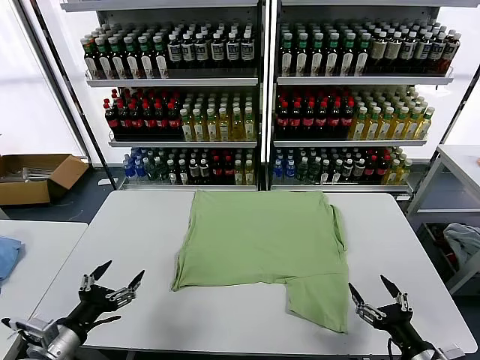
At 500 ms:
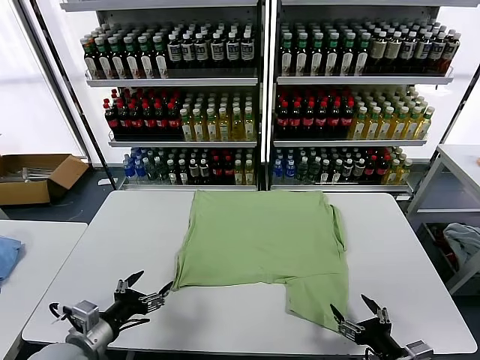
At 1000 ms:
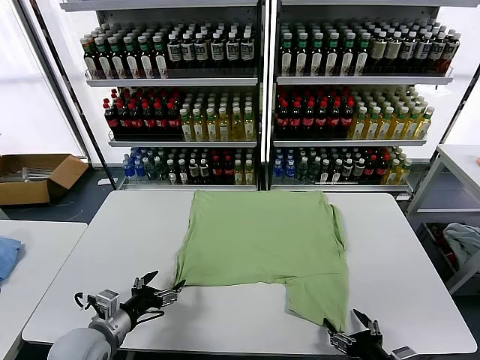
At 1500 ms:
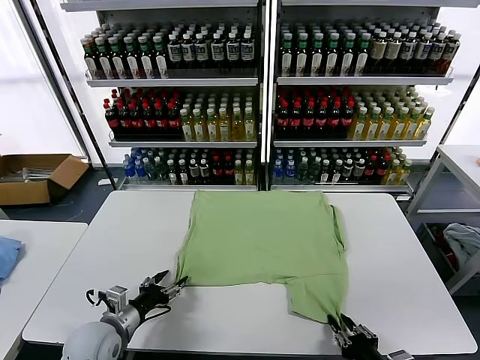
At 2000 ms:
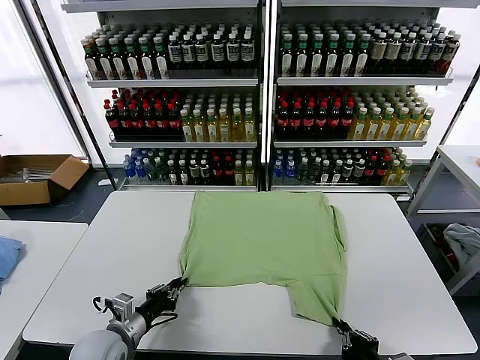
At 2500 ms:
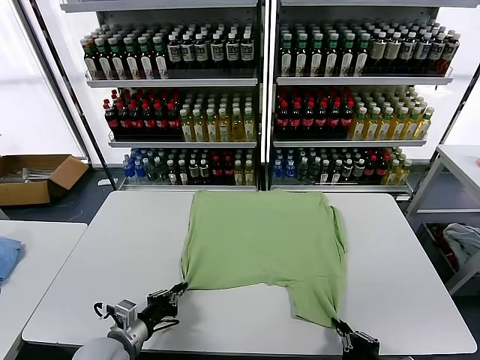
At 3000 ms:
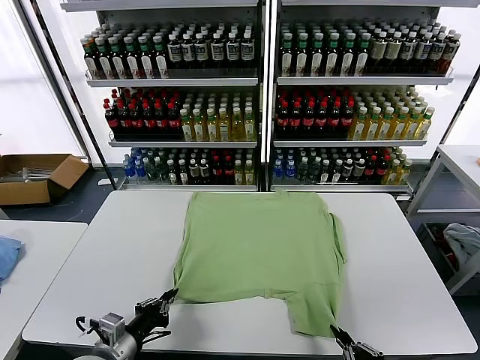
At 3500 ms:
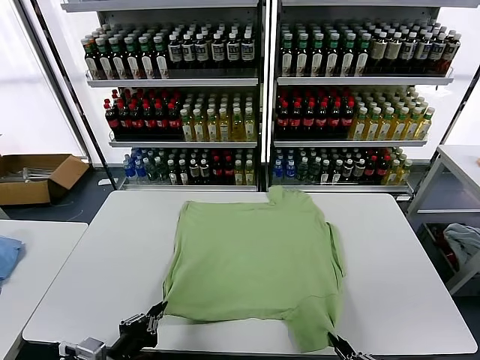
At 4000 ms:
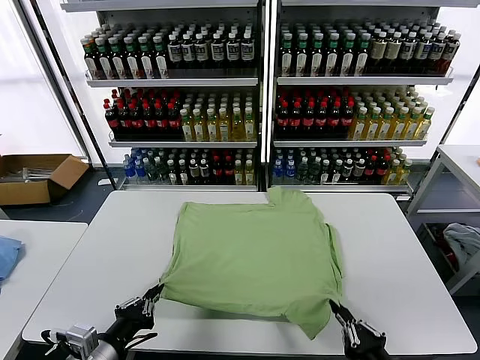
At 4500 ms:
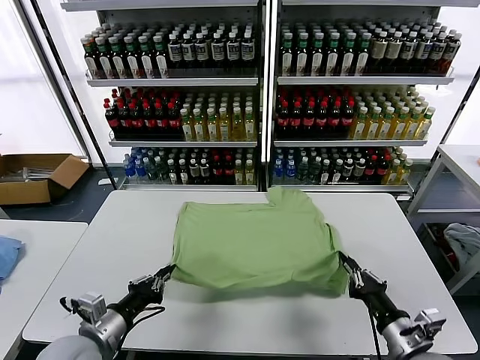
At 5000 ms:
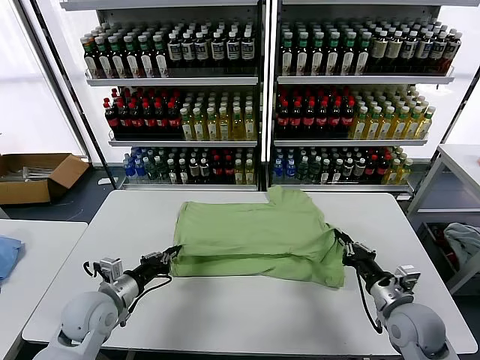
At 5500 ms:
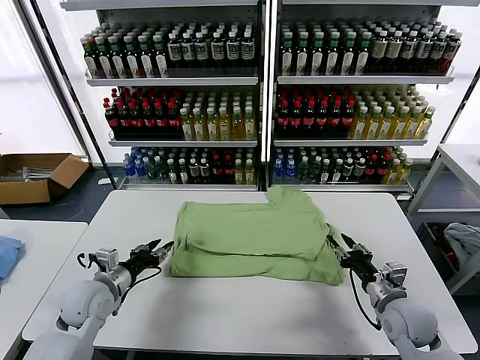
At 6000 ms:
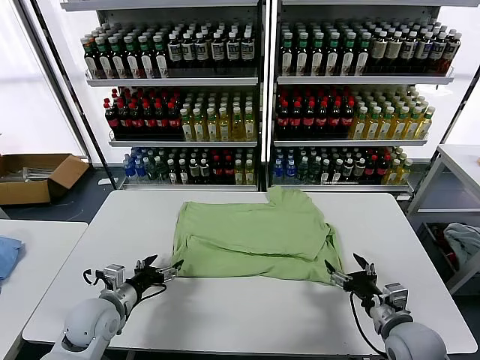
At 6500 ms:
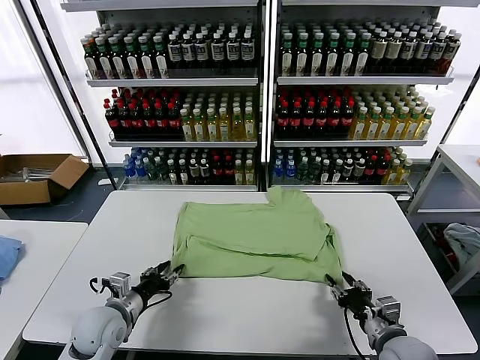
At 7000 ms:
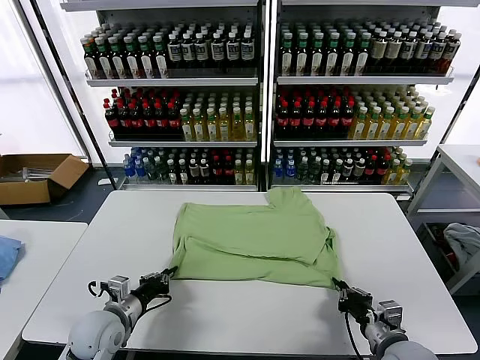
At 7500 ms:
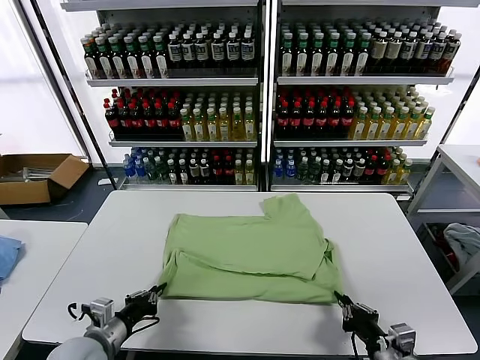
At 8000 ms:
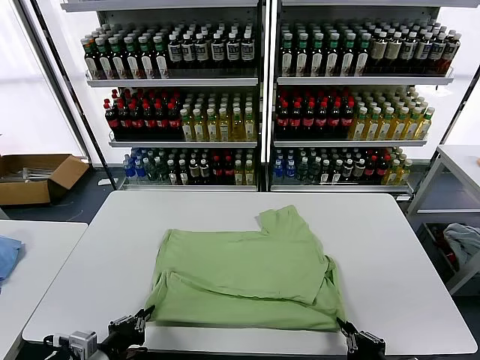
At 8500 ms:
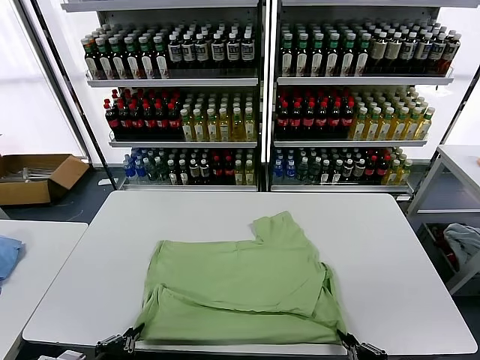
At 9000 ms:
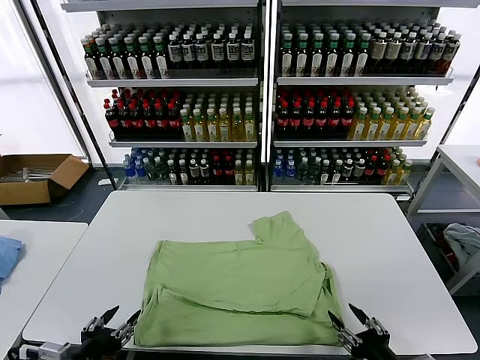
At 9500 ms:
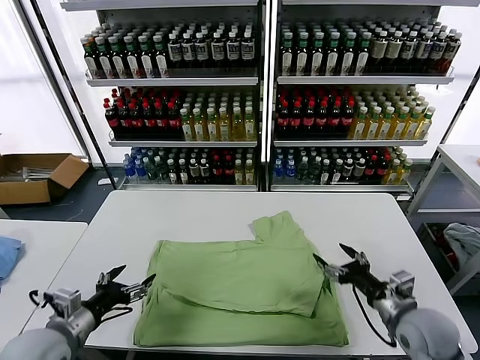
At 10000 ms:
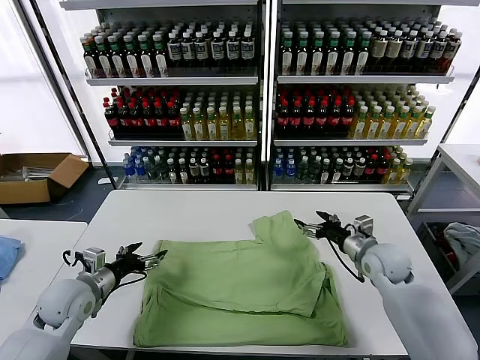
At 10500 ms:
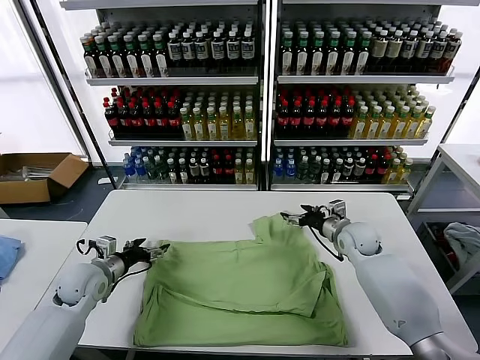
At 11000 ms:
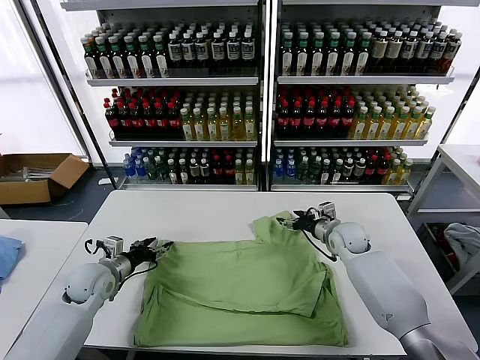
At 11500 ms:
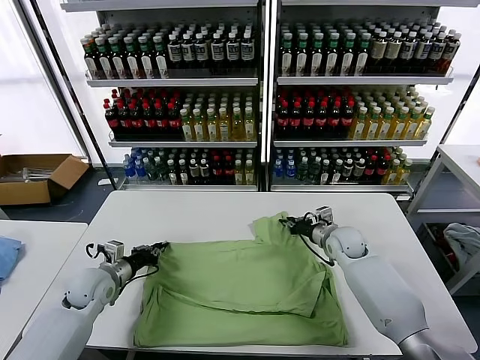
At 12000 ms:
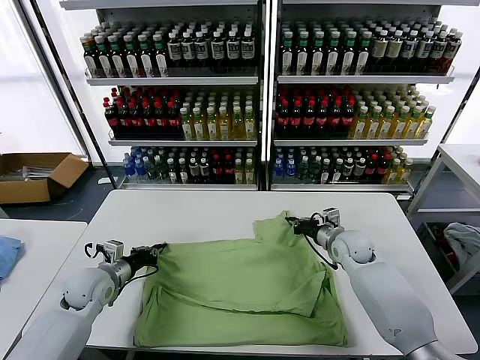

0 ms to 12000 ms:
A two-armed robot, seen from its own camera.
Task of the whole recording: fold and organize the clothes.
Step, 0 ms to 2000 ms: use both grippers simultaneously to clamp the lower edge of the clothing fabric.
Step, 2500 ms to 5500 ms: use both grippers to drag the lower edge of the fabric forward and fold it over the upper edge.
Step, 6000 ms to 8500 ms: Drag the clothes downward with both gripper.
Step, 9000 ms to 11500 ms: use both grippers simultaneously to clamp the upper edge of the clothing fabric.
2000 ms to 4000 ms: The right gripper goes backward and returns, some 10 cm each way. The left gripper heads backward and upward, covering about 15 cm.
4000 ms to 6000 ms: The left gripper heads forward and downward, covering approximately 15 cm, and opens. The right gripper goes roughly 15 cm forward, and opens up.
6000 ms to 8000 ms: The two grippers go about 15 cm backward. The right gripper closes. Meanwhile the left gripper closes its fingers.
8000 ms to 10000 ms: The right gripper heads forward, covering approximately 35 cm, and opens its fingers, while the left gripper shifts about 15 cm forward, and opens its fingers.
10000 ms to 12000 ms: The left gripper travels forward by some 5 cm, and closes up, while the right gripper shifts by approximately 5 cm, and closes up.

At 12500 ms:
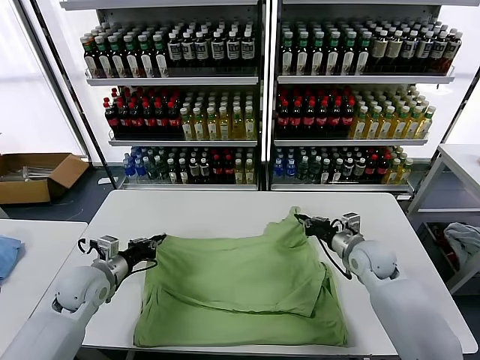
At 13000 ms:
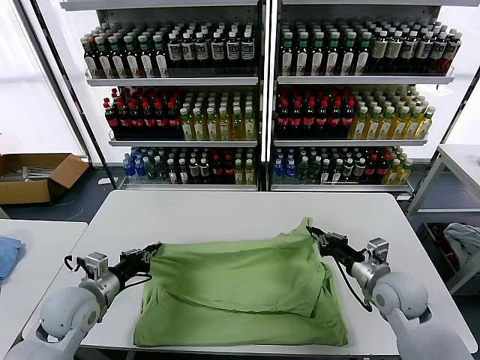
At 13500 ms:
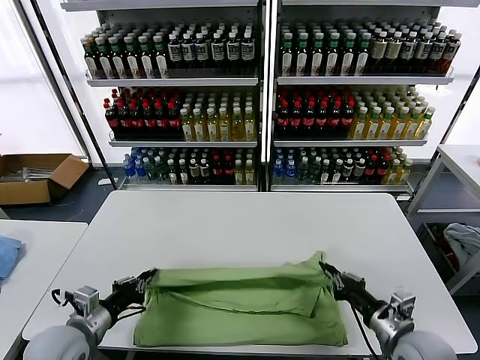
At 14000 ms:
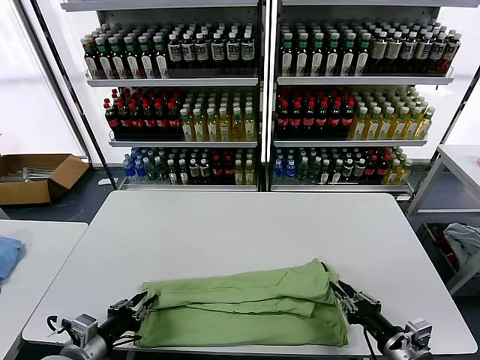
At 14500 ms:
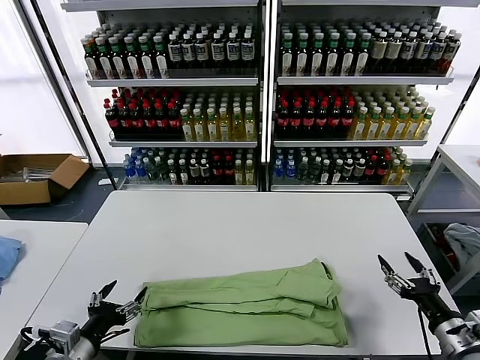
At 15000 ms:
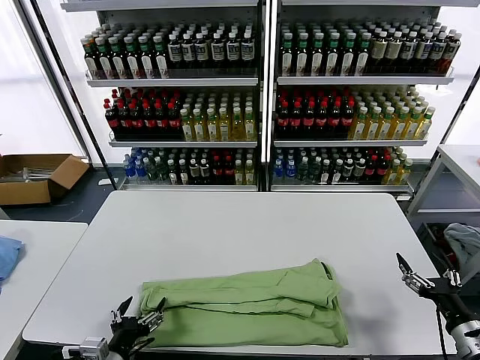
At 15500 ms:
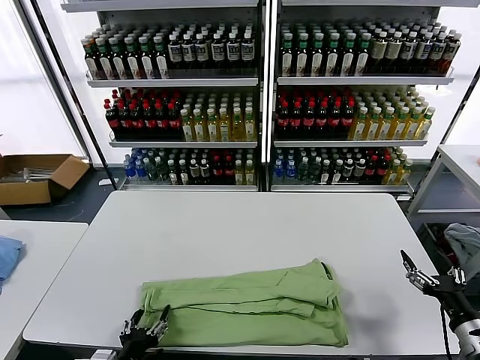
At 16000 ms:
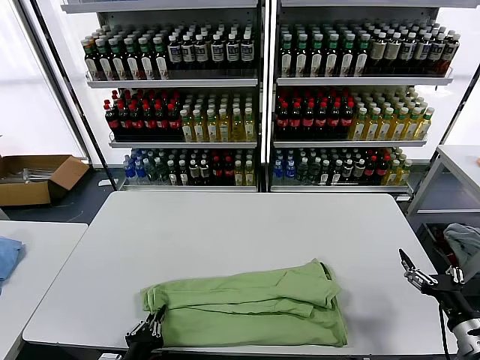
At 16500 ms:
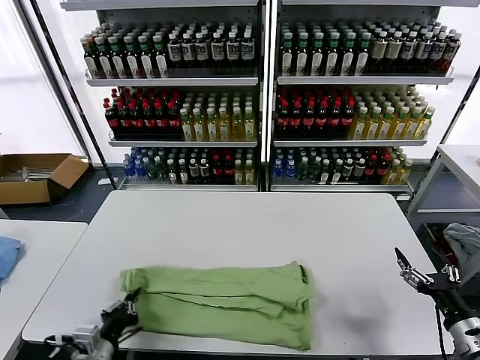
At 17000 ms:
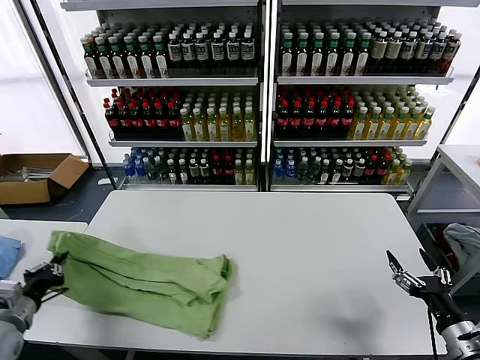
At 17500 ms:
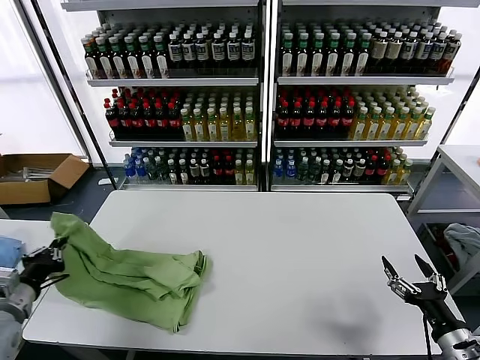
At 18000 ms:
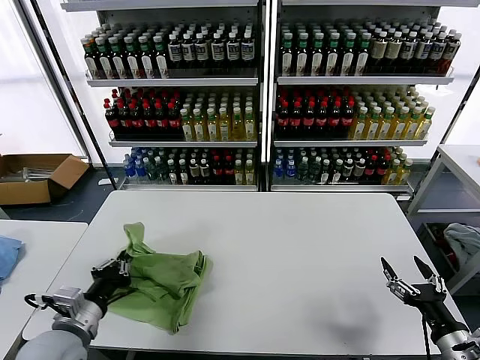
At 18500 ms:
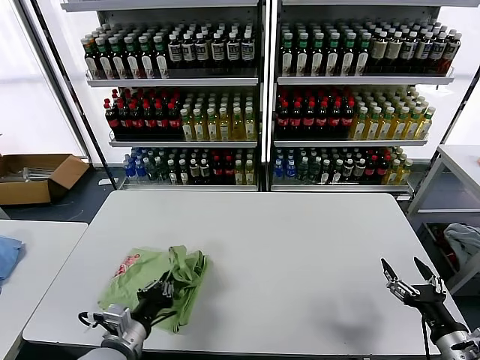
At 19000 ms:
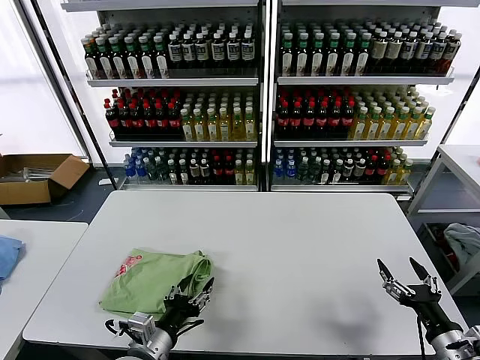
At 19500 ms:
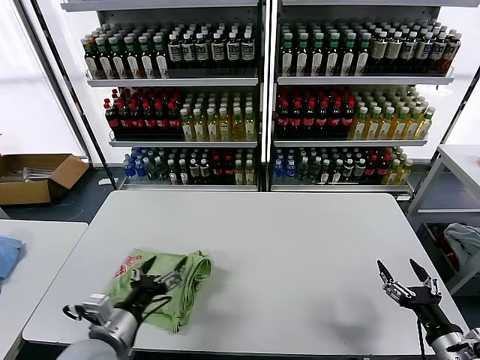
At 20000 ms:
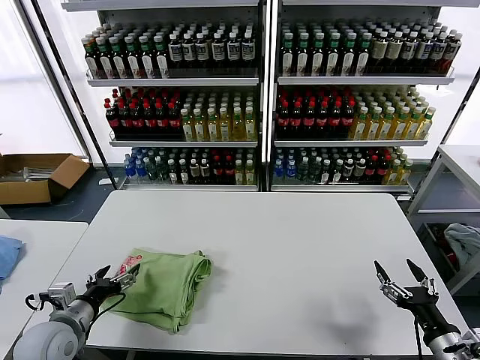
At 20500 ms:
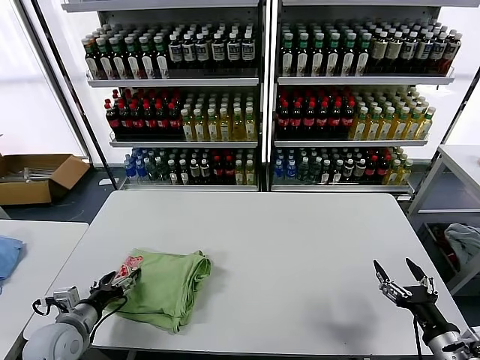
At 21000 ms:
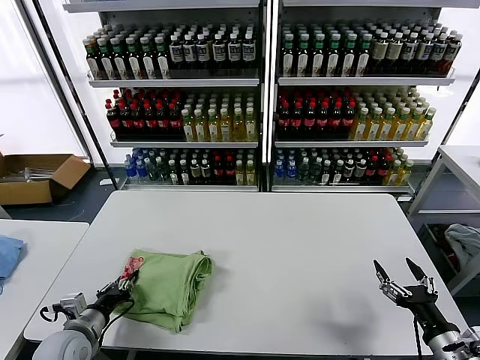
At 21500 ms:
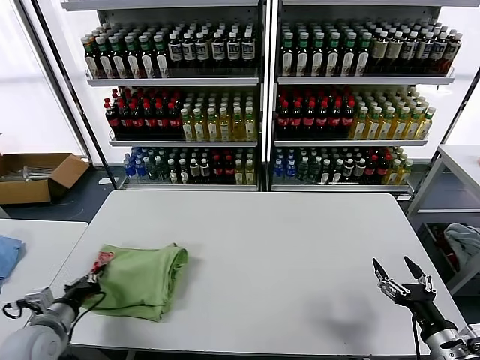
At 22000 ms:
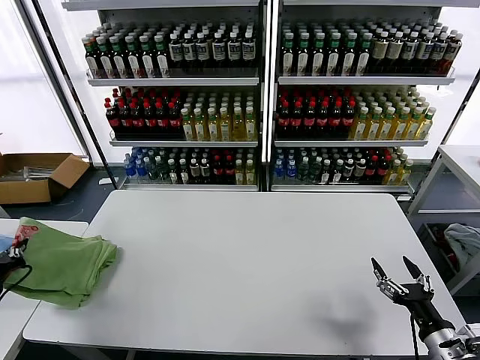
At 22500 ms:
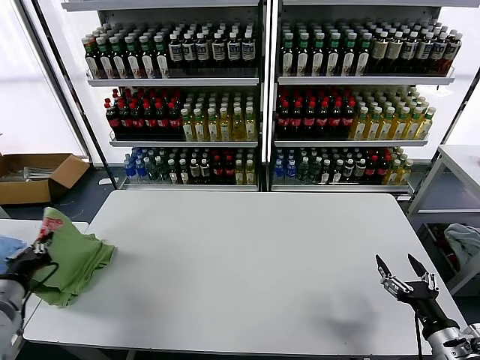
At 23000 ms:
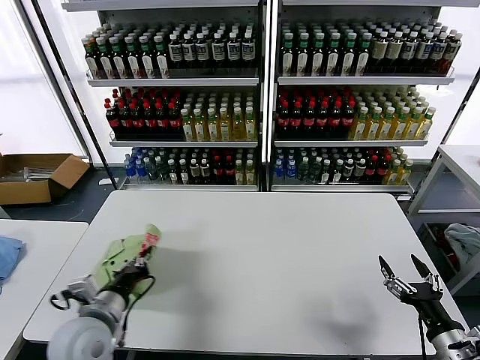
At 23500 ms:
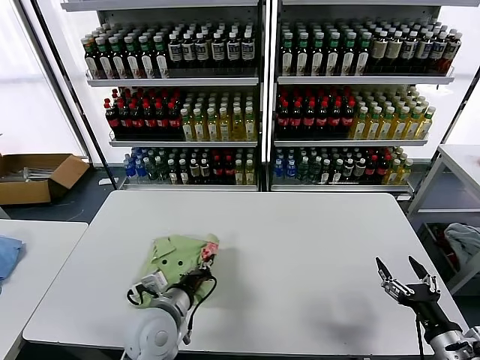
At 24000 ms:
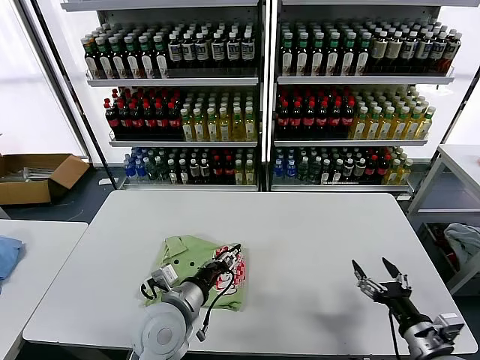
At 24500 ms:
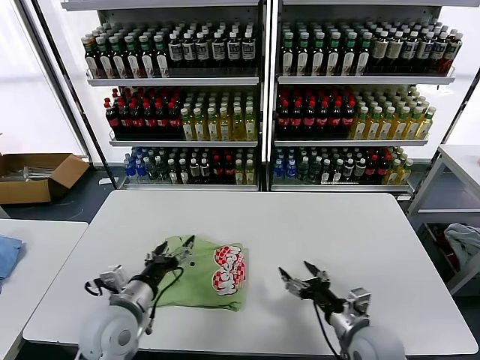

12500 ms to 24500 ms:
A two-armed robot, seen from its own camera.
Task of the whole recording: fold and organize the clothes.
Step, 12500 ms to 14000 ms: use both grippers to drag the upper edge of the fabric backward and fold it over the lower edge.
Step, 14500 ms to 16000 ms: use the left gripper to clamp the left edge of the fabric.
Step, 16500 ms to 19000 ms: use the left gripper to drag the left edge of the fabric to the left and folds it over the right edge.
Step, 19500 ms to 23500 ms: Flip the folded clothes over with left gripper.
12500 ms to 14500 ms: The left gripper shifts approximately 20 cm backward, and opens its fingers, while the right gripper moves backward and to the right, roughly 25 cm, and opens its fingers.
14500 ms to 16500 ms: The left gripper travels downward by approximately 5 cm, and closes up.
16500 ms to 18500 ms: The left gripper goes to the left and returns, approximately 15 cm each way.
18500 ms to 20500 ms: The left gripper moves to the left and forward, about 15 cm, and opens up.
20500 ms to 22500 ms: The left gripper travels upward and to the left by some 15 cm, and closes.
22500 ms to 24500 ms: The right gripper shifts roughly 15 cm to the left and forward. Meanwhile the left gripper moves to the right, about 25 cm, and opens its fingers.

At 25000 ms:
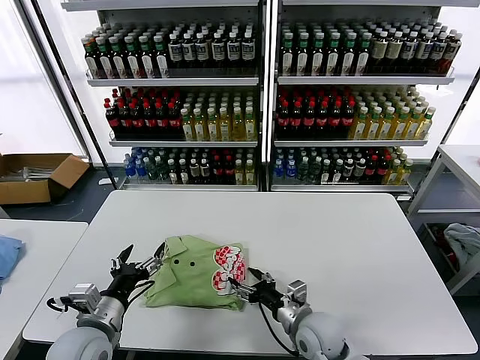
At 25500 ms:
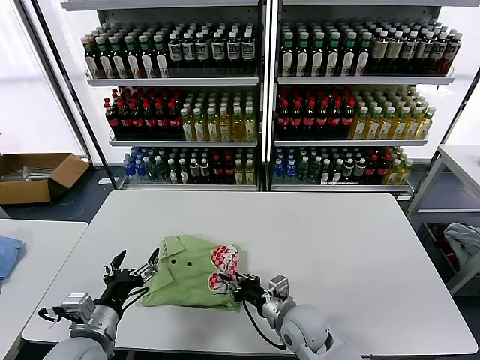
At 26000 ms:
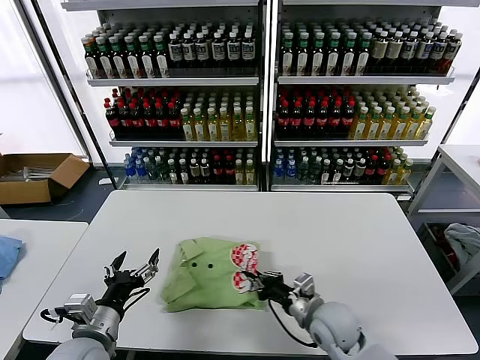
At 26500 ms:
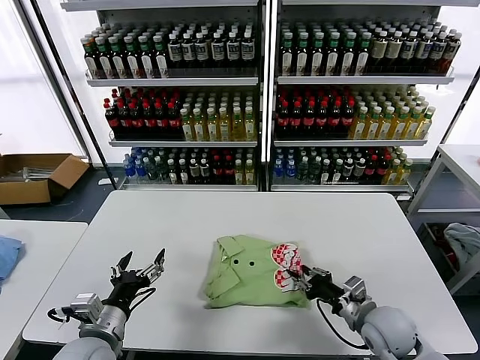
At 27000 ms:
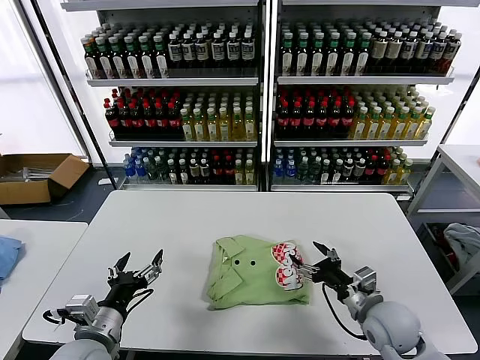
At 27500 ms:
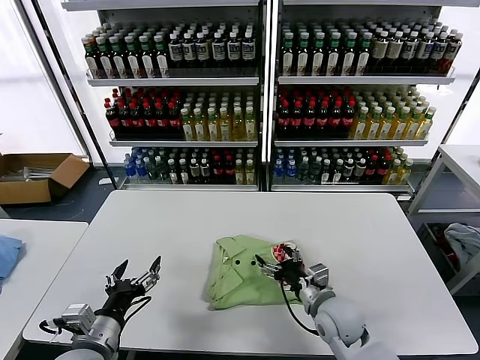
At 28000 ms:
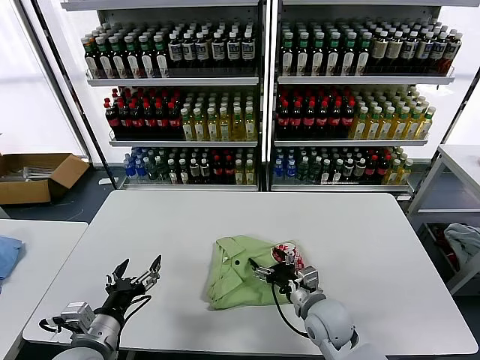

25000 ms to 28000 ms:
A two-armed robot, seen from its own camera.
Task of the whole recording: fold and organize the clothes.
25000 ms to 26500 ms: The right gripper heads to the right, covering about 10 cm, and closes.
26500 ms to 28000 ms: The right gripper goes some 10 cm to the left, and opens its fingers.
